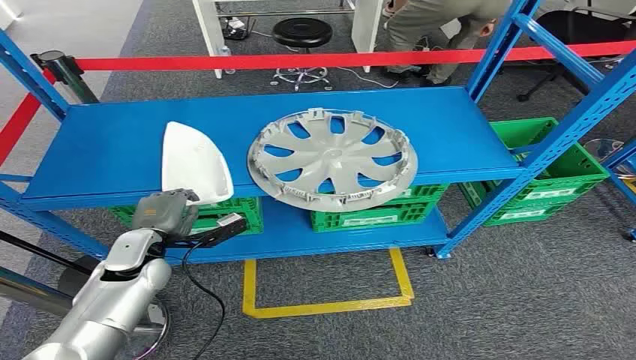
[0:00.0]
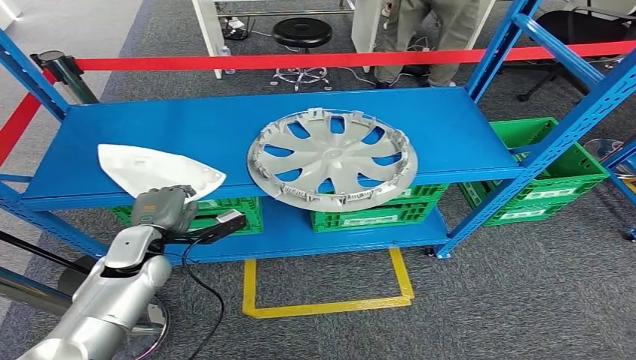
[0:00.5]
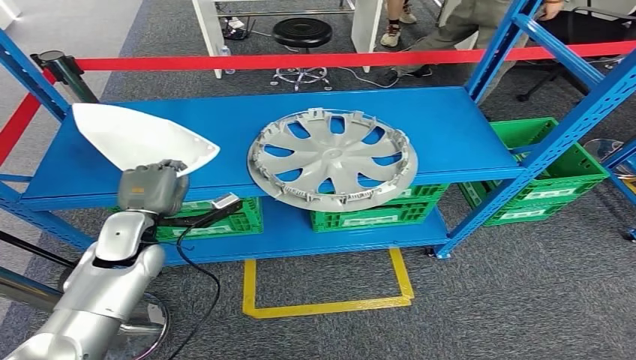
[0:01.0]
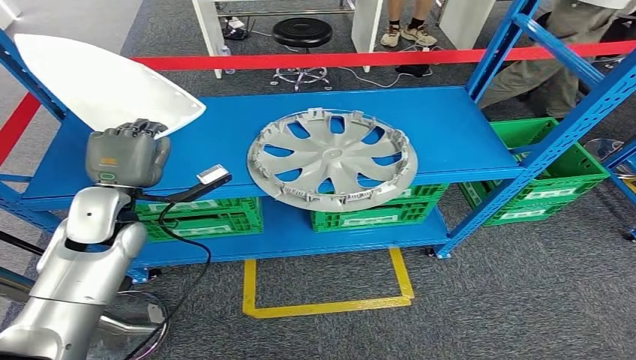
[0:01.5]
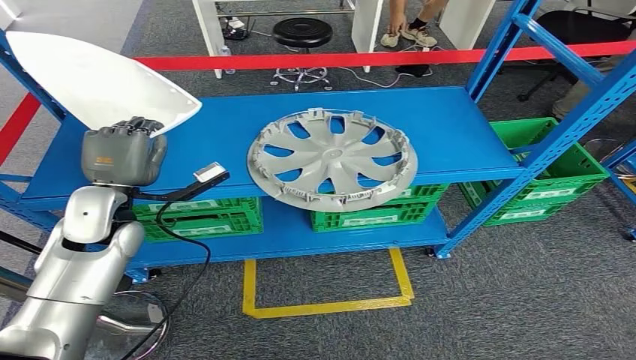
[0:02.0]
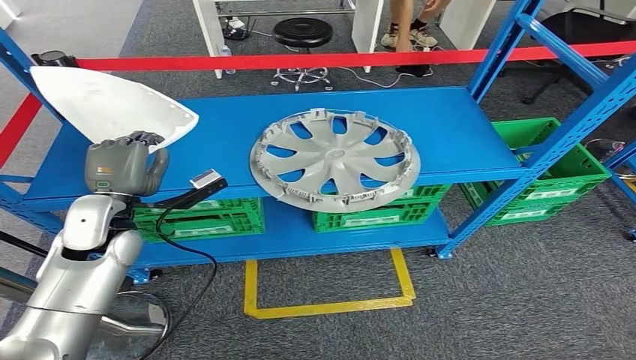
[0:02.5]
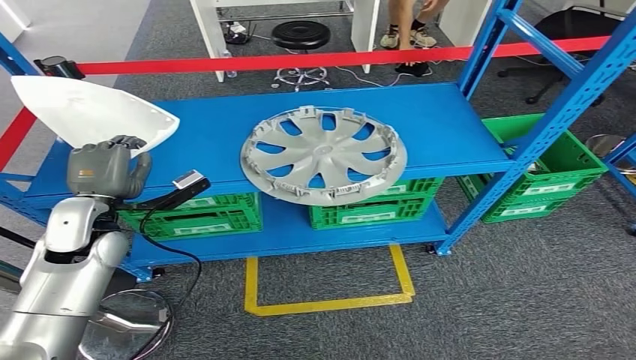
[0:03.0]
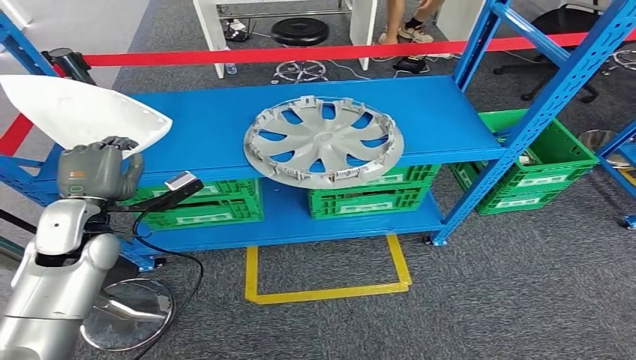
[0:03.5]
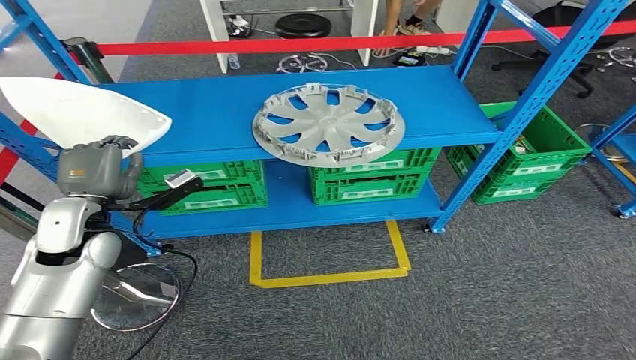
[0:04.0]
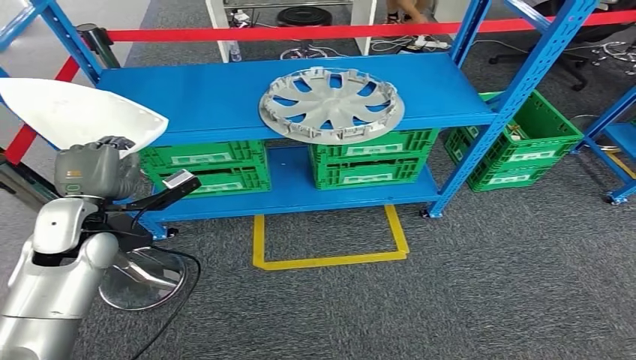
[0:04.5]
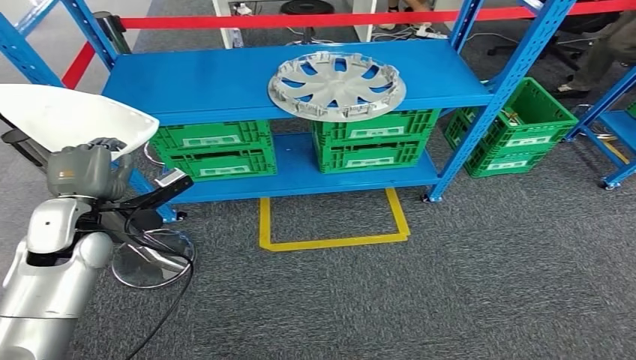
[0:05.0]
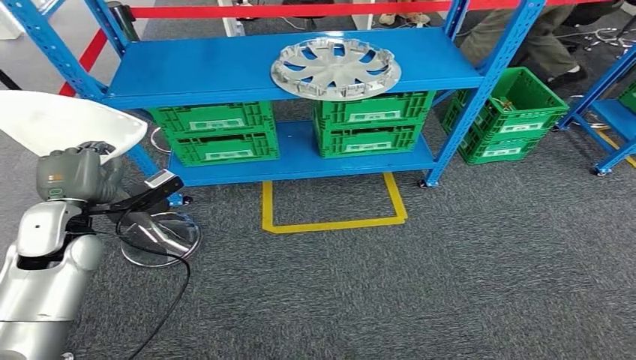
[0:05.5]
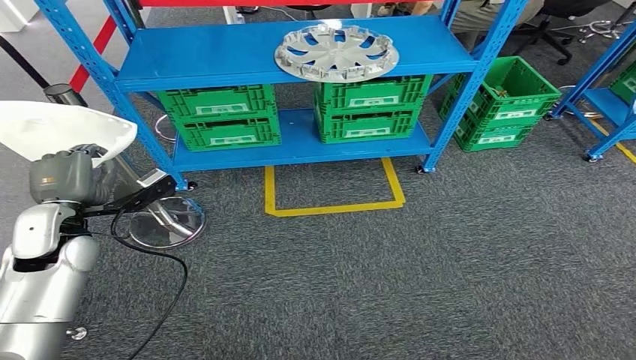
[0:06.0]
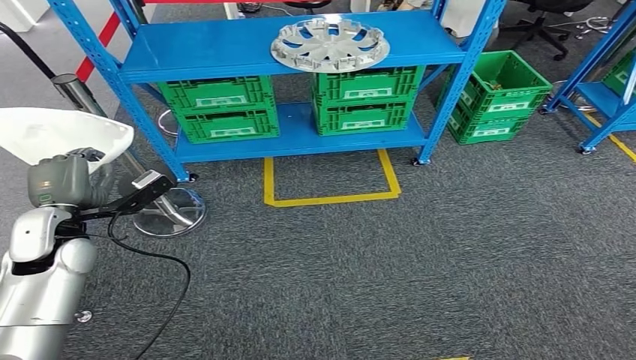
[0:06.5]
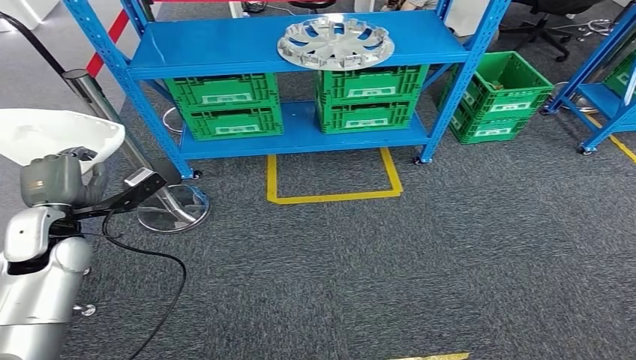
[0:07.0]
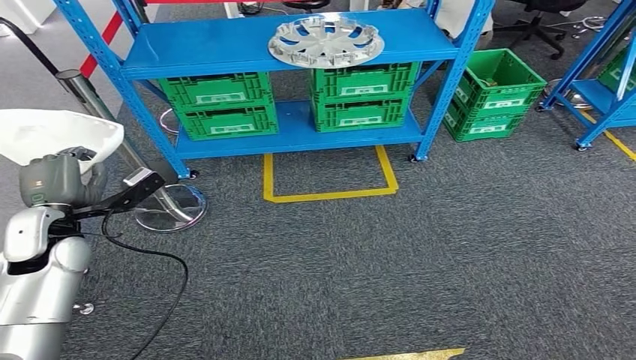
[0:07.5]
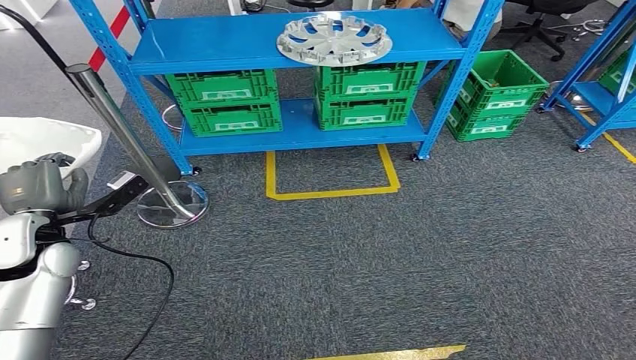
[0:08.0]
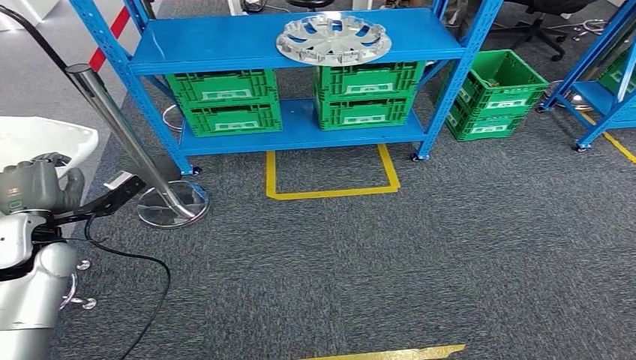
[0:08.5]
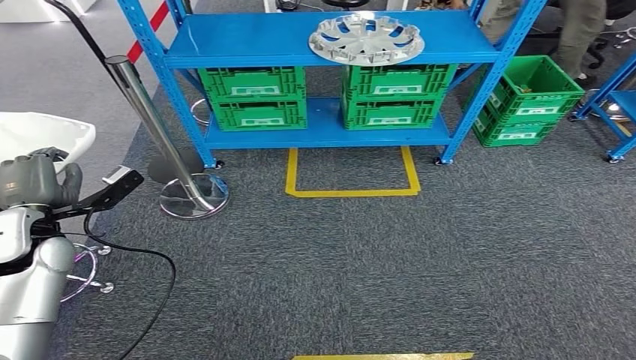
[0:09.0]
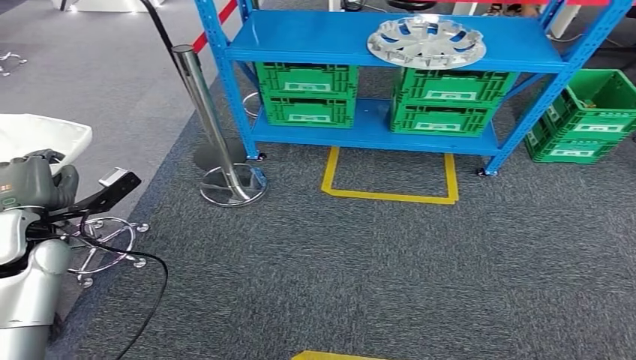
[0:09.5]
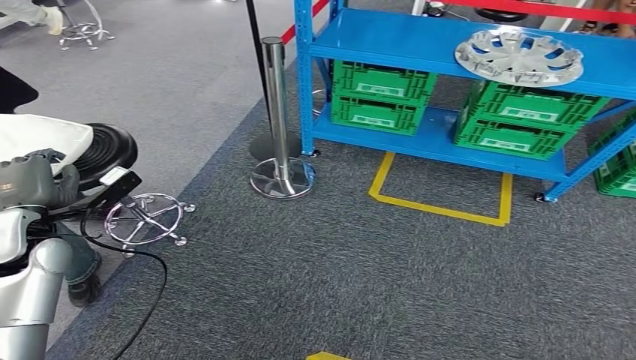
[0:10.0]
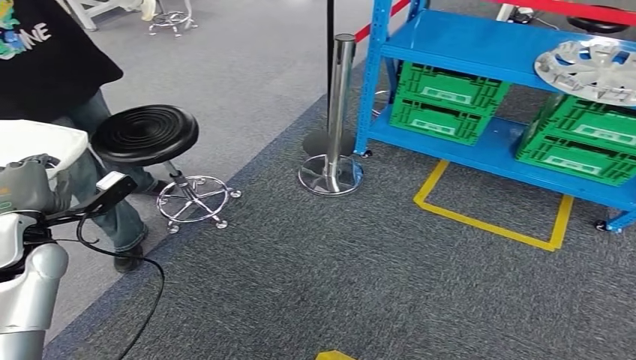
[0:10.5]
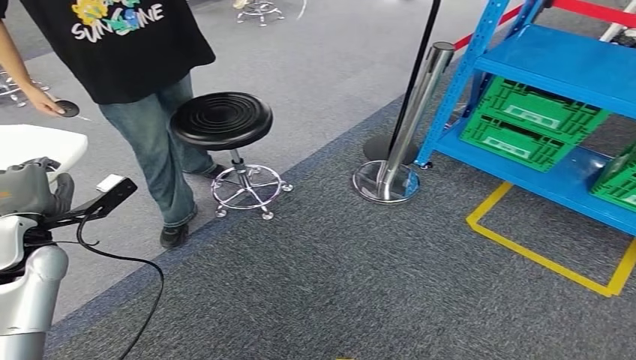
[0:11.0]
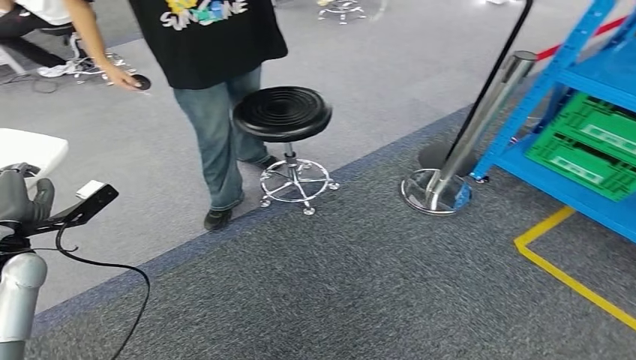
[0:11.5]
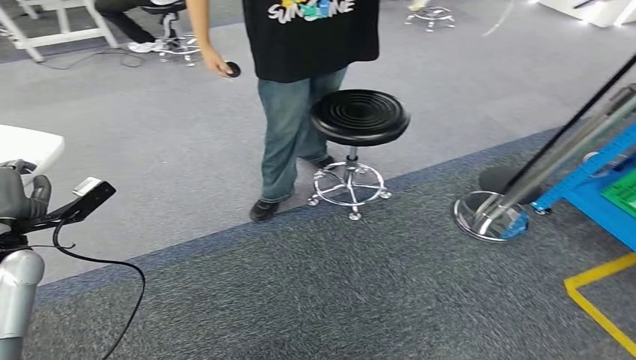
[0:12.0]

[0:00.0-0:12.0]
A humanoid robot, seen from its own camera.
Step, 0:00.0 to 0:04.0: Pick up the small component from the shelf.

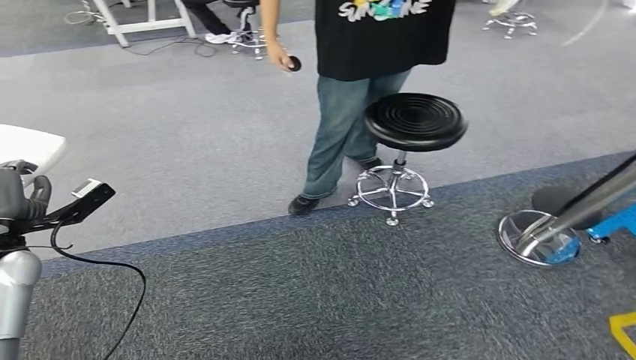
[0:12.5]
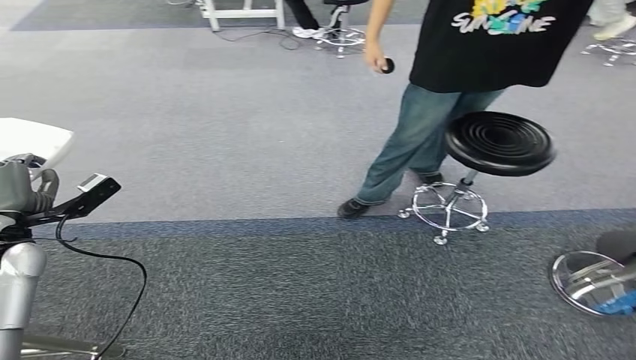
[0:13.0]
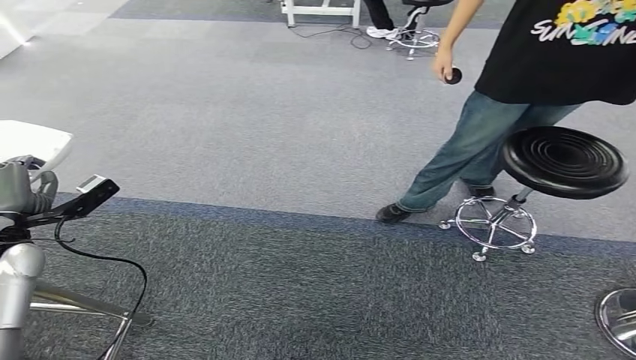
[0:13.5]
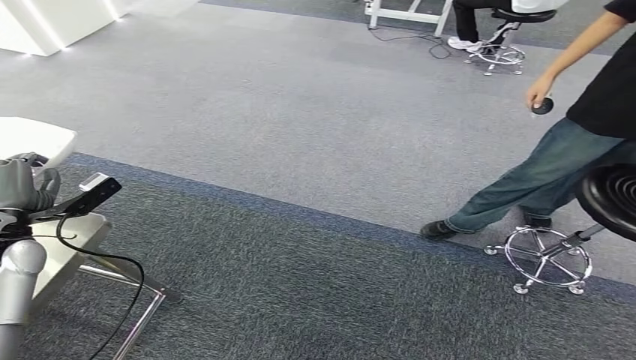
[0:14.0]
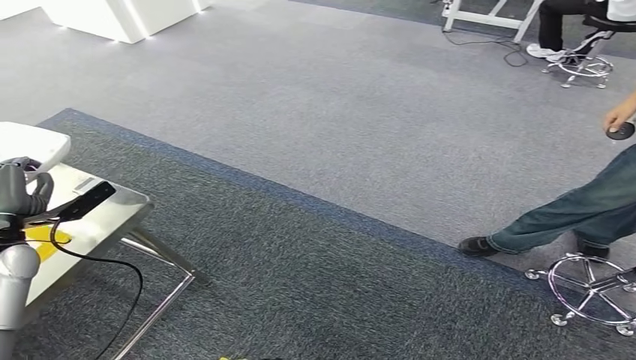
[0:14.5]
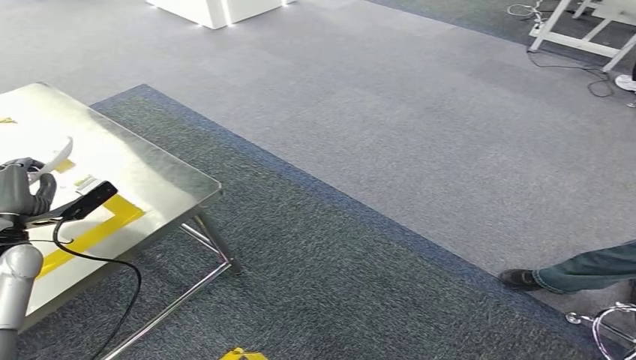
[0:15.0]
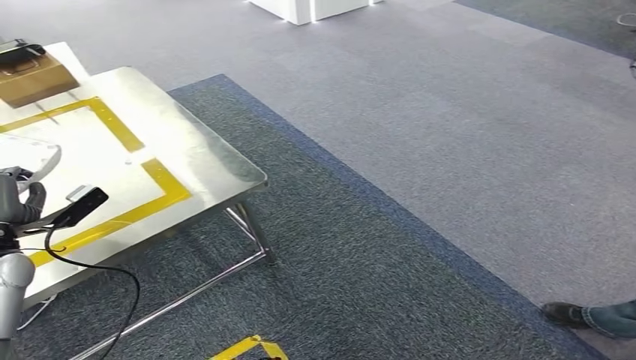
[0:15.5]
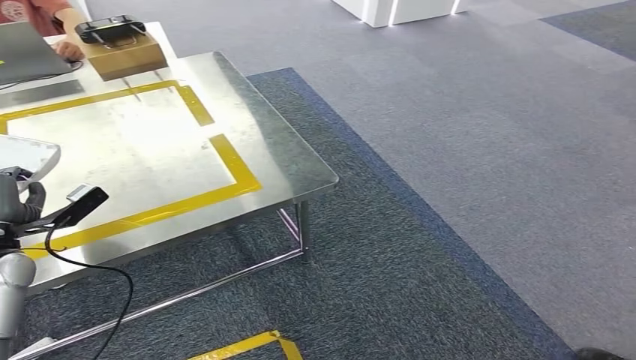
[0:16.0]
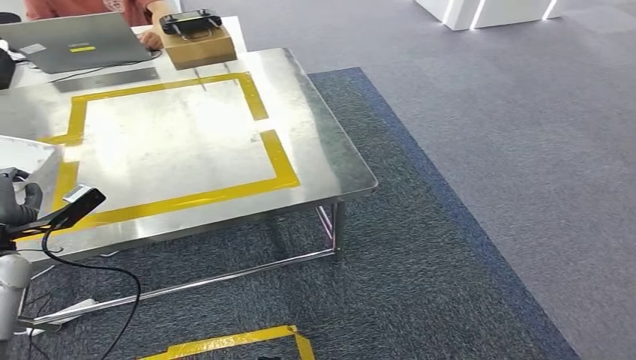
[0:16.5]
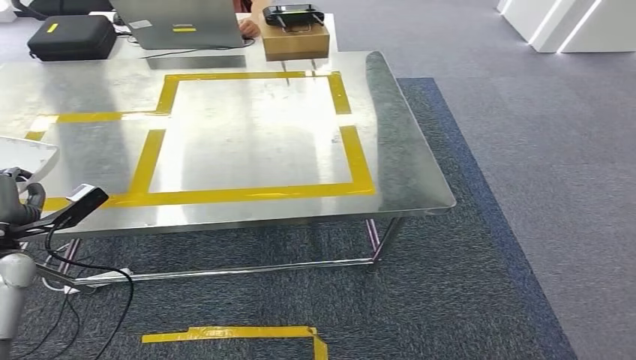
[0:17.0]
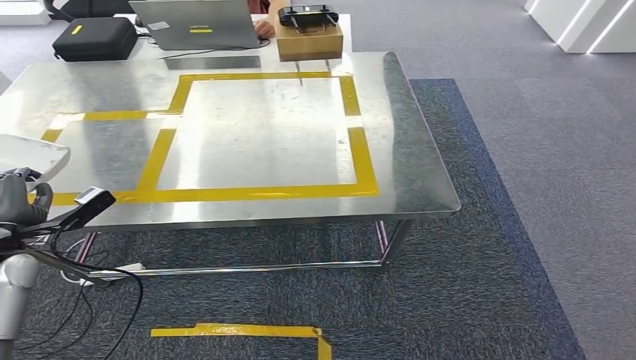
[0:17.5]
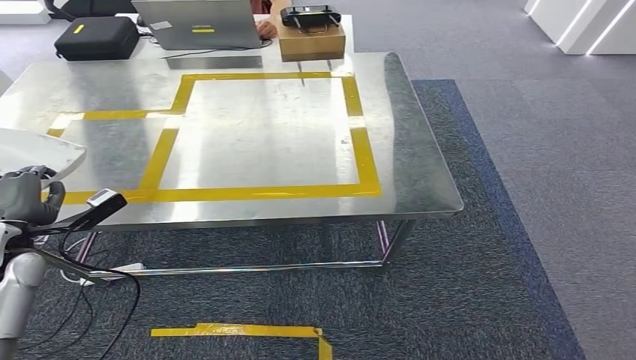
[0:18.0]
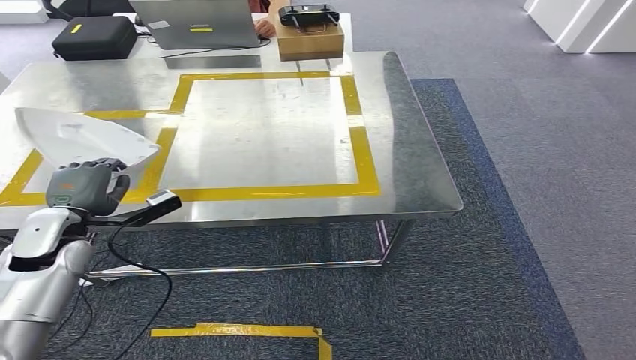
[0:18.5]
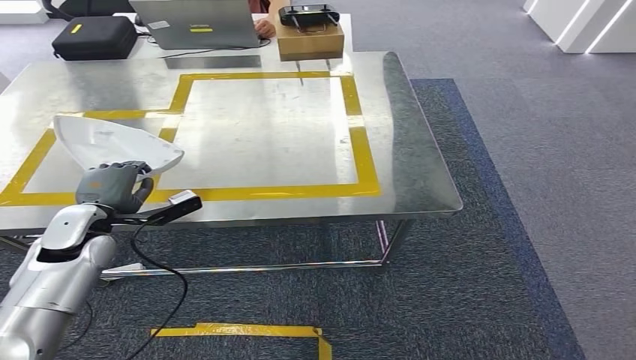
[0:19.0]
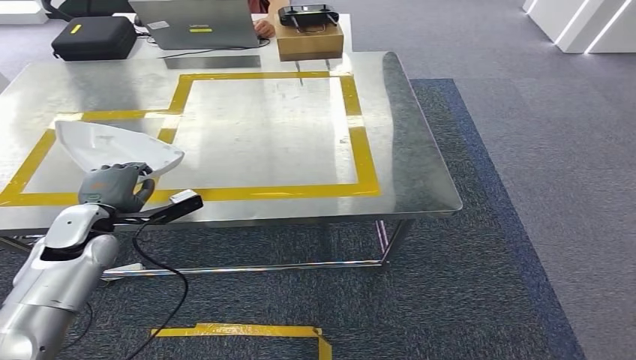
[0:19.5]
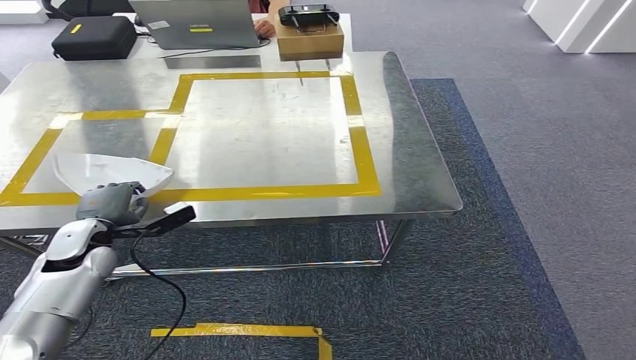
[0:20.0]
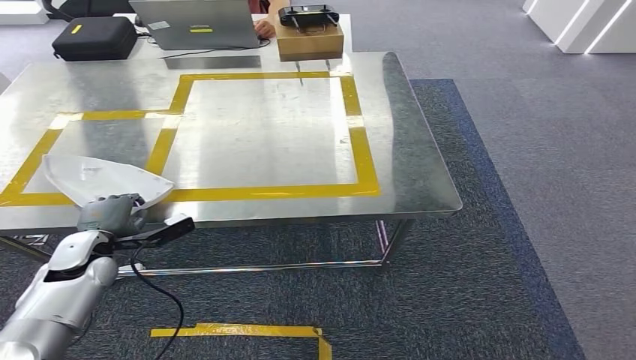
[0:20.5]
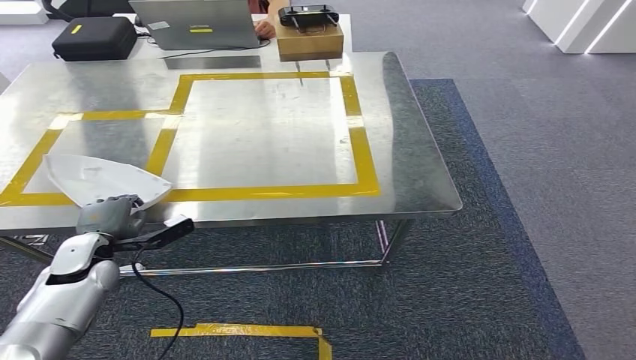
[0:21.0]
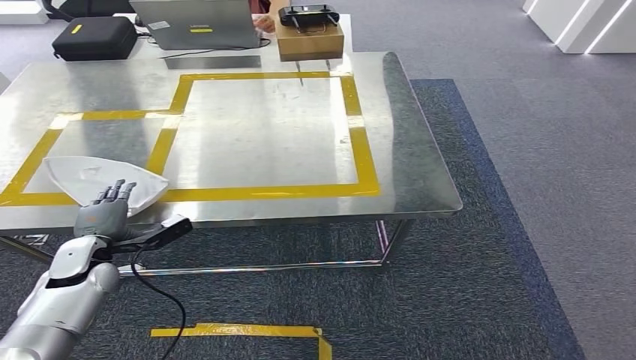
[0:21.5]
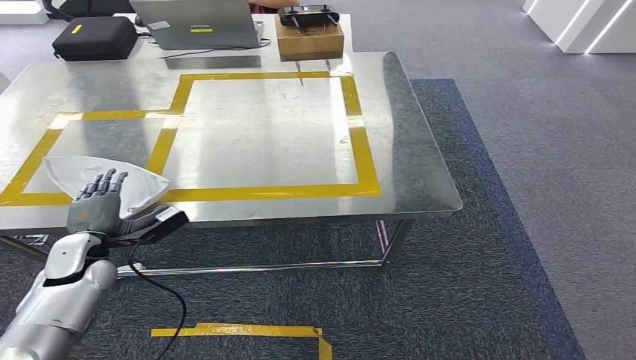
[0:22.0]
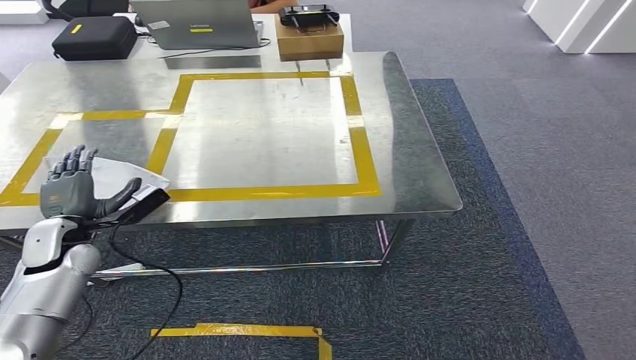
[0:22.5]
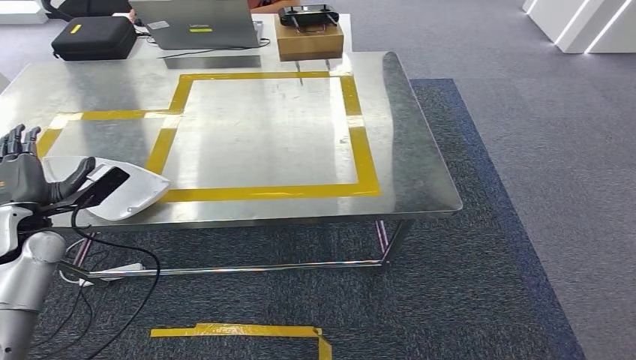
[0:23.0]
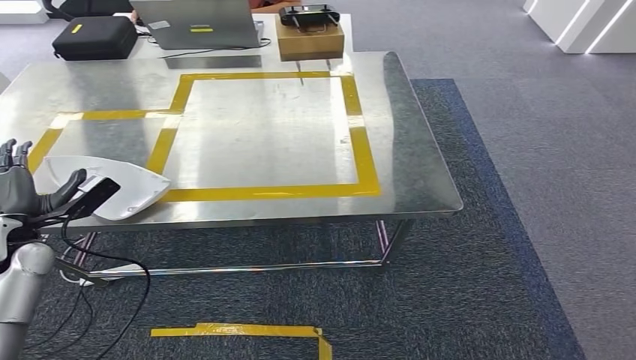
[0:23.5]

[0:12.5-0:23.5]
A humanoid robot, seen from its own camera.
Step, 0:12.5 to 0:19.0: Move the small component to the workbench.
0:18.0 to 0:20.0: The left hand shifts roughly 10 cm to the right and downward.
0:20.0 to 0:21.5: The hands make only small movements.
0:21.5 to 0:23.5: The left hand moves upward and to the left, approximately 10 cm.
